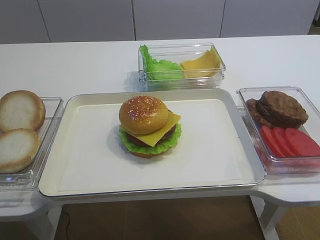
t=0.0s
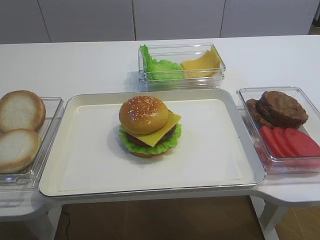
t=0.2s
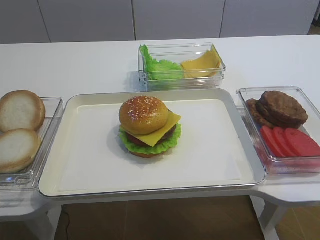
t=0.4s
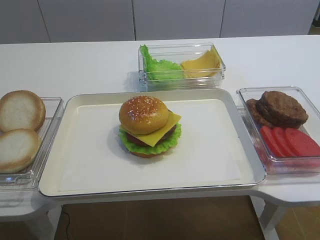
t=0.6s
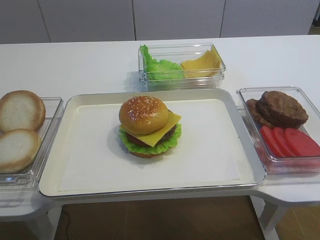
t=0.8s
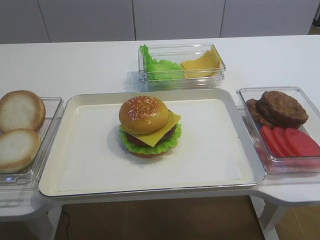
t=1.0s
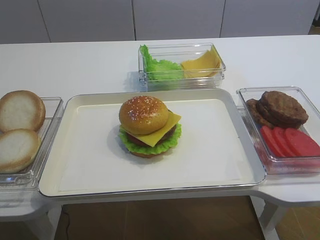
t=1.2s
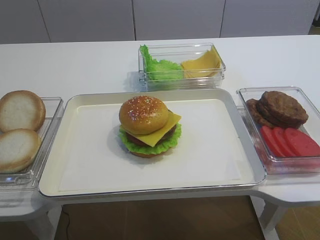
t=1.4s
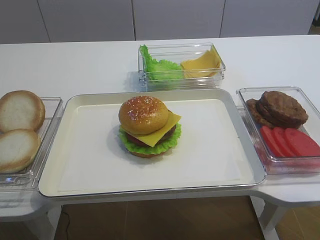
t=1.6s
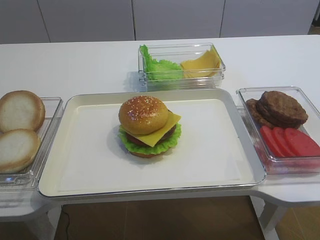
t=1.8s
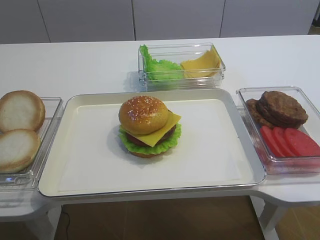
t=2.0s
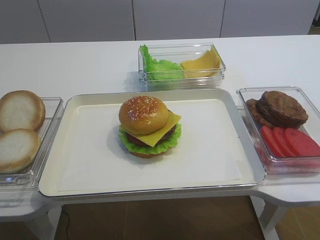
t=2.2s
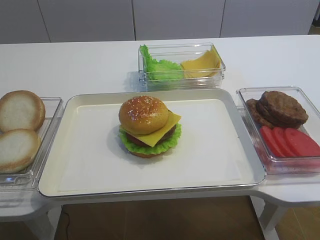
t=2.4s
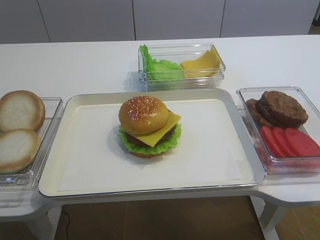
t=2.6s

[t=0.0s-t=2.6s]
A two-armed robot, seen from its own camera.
t=1.2s to t=2.6s: Both grippers stay put.
